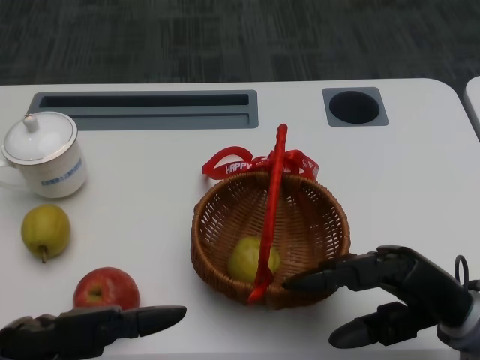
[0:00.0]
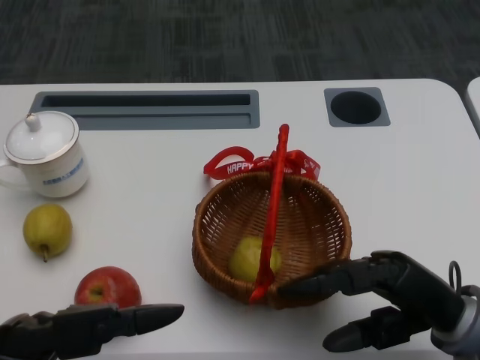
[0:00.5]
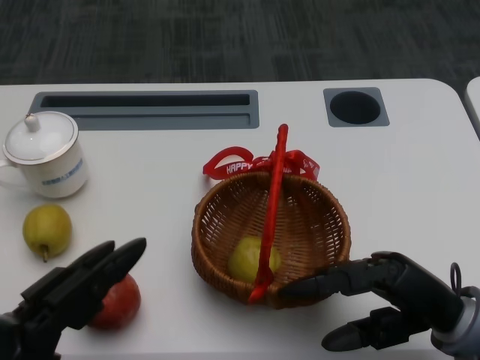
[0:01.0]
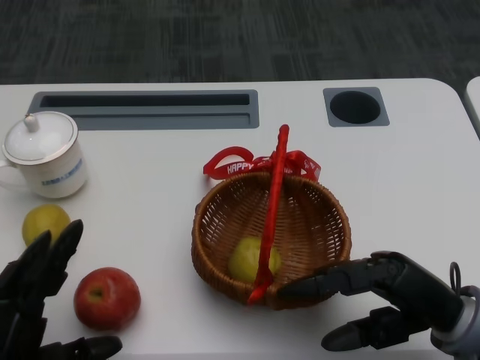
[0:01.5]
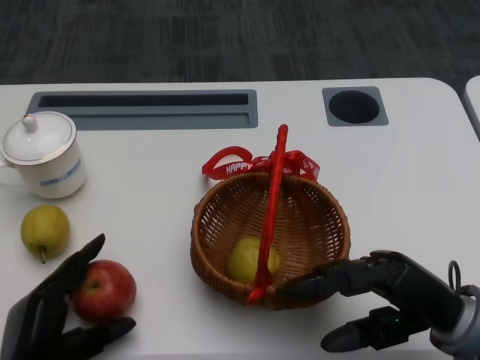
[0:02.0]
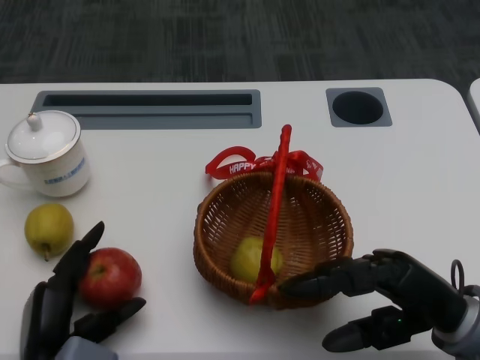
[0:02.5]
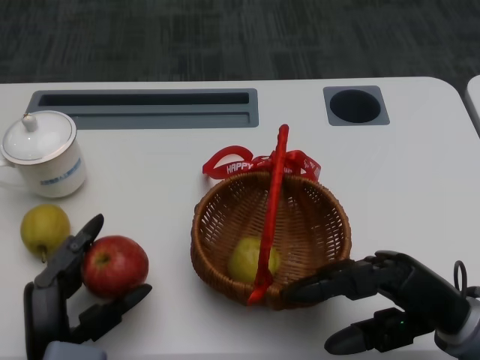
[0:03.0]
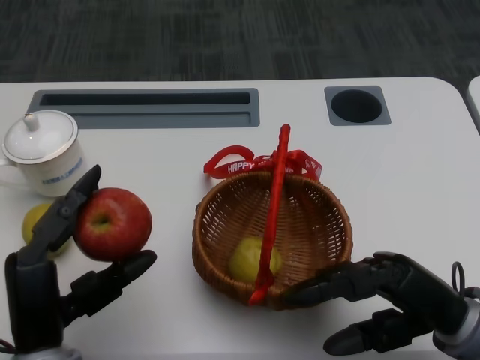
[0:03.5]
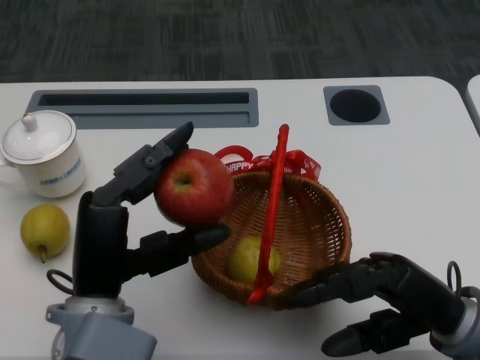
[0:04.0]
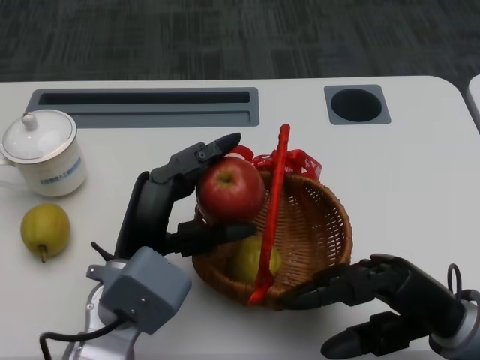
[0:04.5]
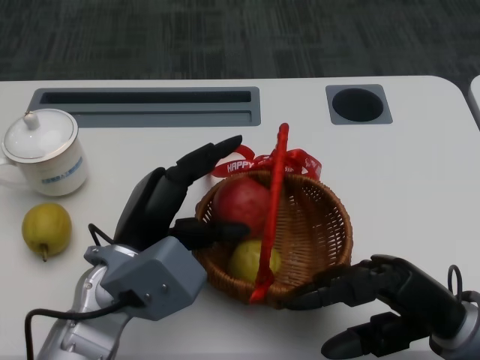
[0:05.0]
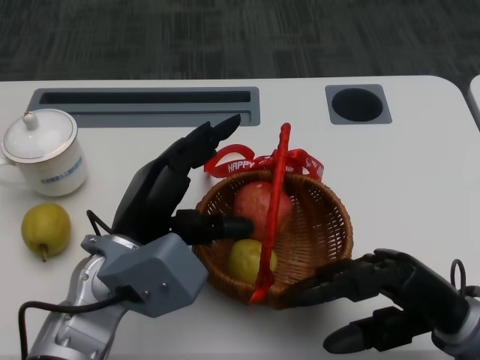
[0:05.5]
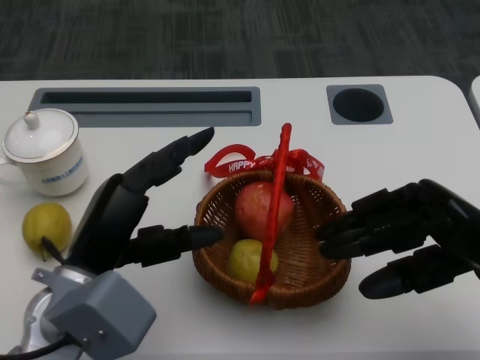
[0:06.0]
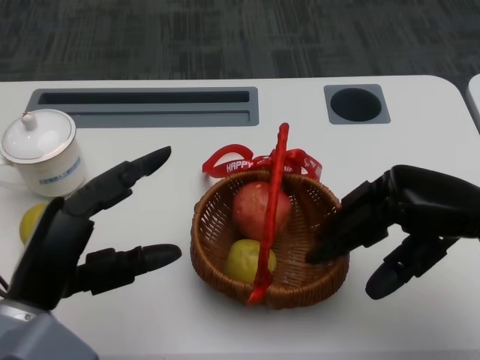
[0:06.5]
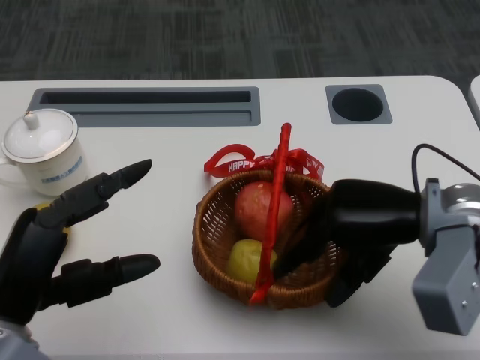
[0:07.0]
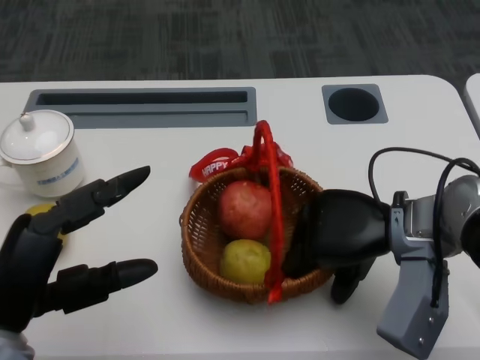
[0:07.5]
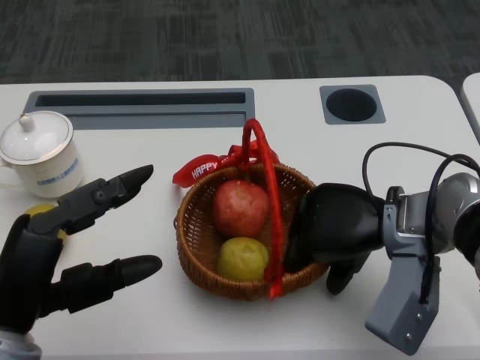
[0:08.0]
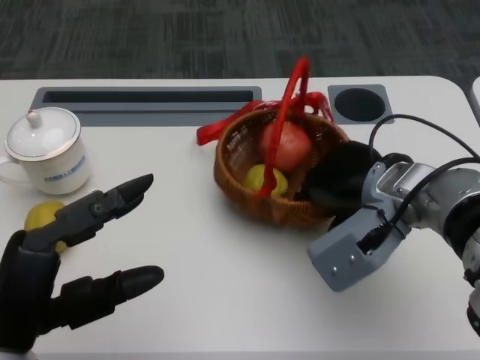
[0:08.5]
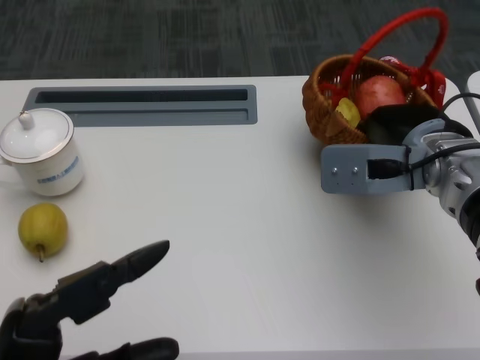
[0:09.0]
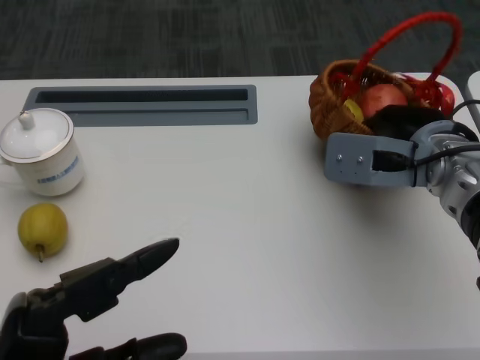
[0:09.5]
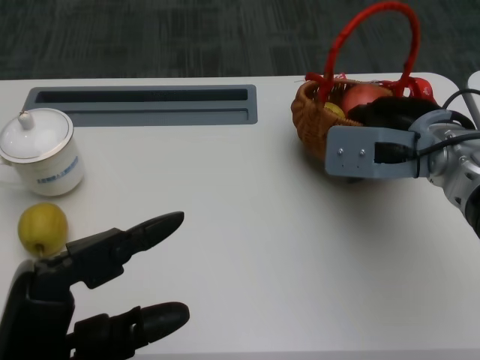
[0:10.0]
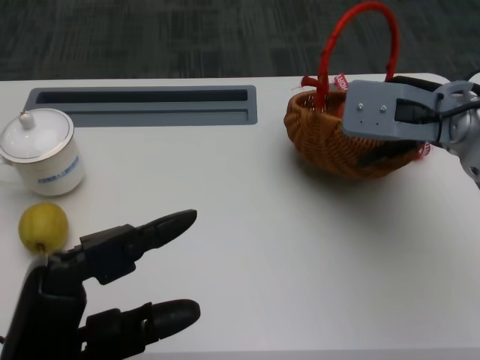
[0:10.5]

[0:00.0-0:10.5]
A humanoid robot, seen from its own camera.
Step, 0:01.0 to 0:02.0: Grasp the apple with the left gripper.
Step, 0:02.5 to 0:04.0: Place the apple into the basket with the left gripper.
Step, 0:04.5 to 0:06.0: Grasp the basket with the right gripper.
Step, 0:06.5 to 0:09.5: Move the basket to the front of the table with the right gripper.
0:02.0 to 0:04.0: The left hand is displaced upward and to the right by about 15 cm.
0:04.0 to 0:06.5: The left hand is displaced to the left by some 5 cm, while the right hand travels upward and forward by approximately 10 cm.
0:06.5 to 0:08.5: The right hand moves to the left, approximately 10 cm.
0:08.5 to 0:10.5: The right hand travels upward by approximately 5 cm.

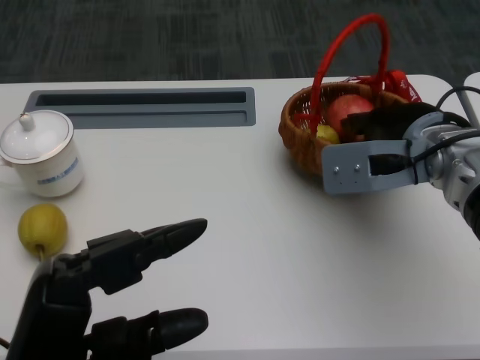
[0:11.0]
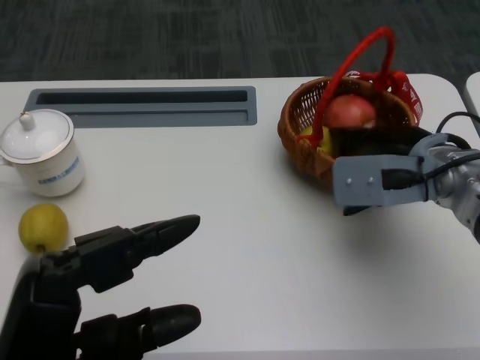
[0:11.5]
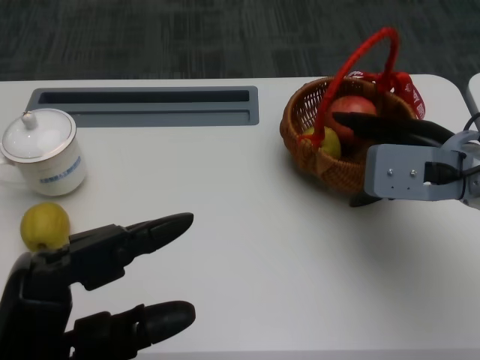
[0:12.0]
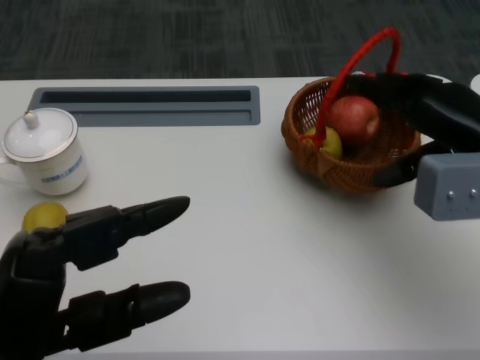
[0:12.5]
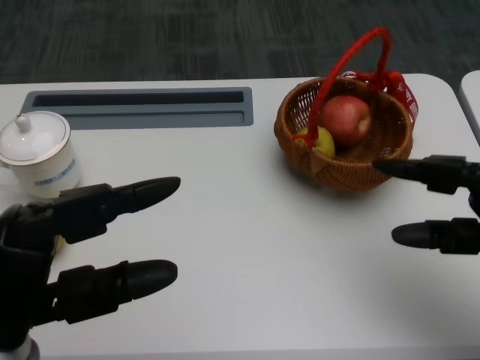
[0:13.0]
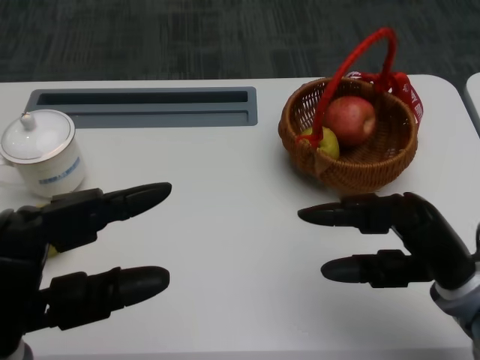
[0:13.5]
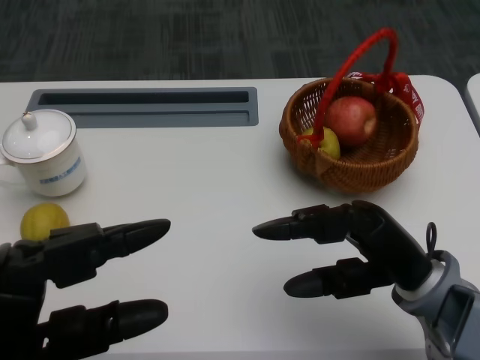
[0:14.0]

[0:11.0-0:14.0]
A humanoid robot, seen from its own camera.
0:11.0 to 0:12.5: The right hand is displaced to the right by roughly 5 cm.
0:12.5 to 0:14.0: The right hand travels backward, downward and to the left by roughly 15 cm.

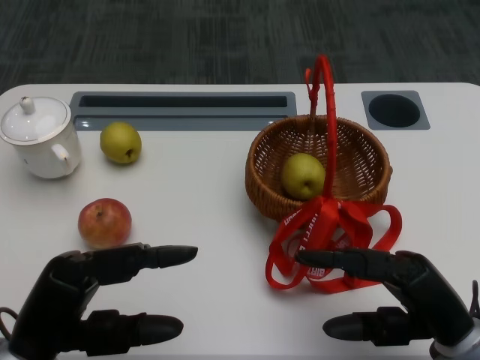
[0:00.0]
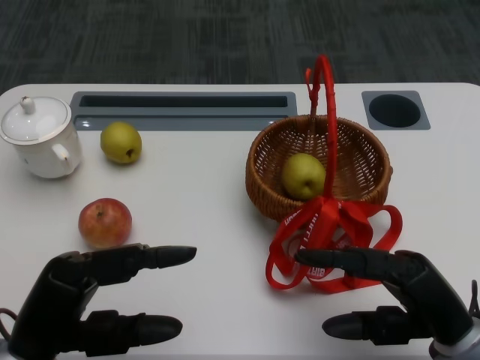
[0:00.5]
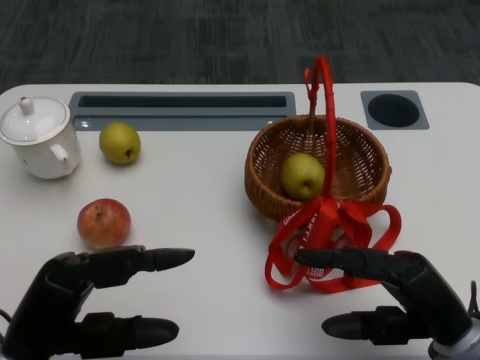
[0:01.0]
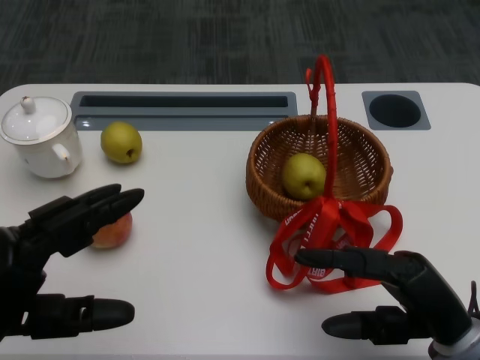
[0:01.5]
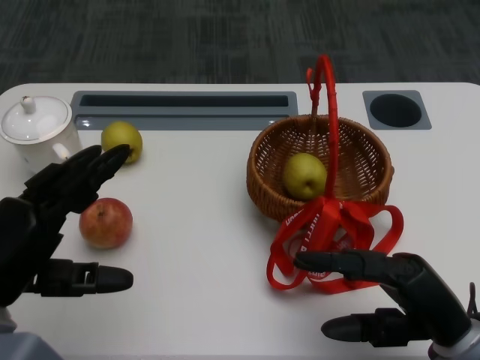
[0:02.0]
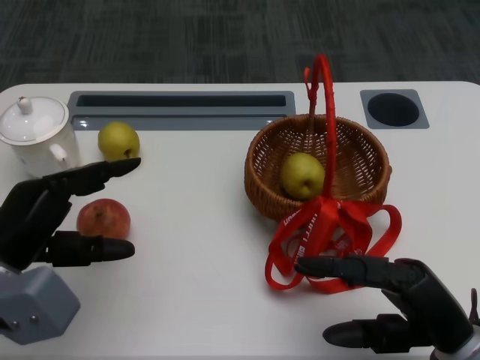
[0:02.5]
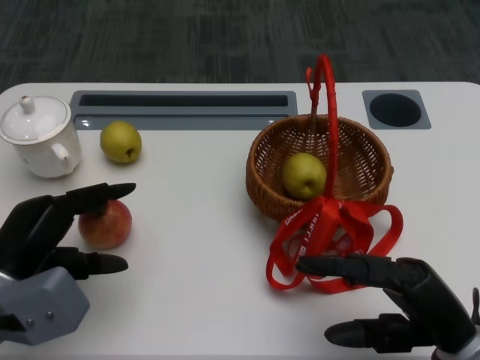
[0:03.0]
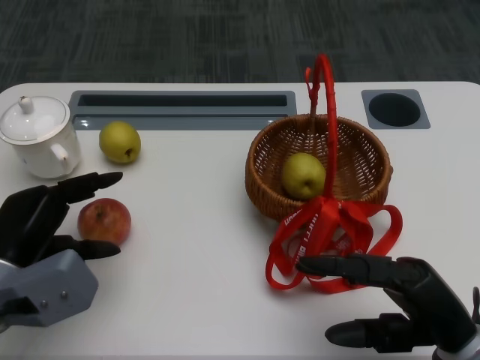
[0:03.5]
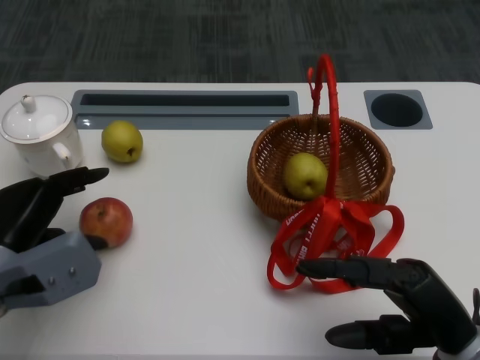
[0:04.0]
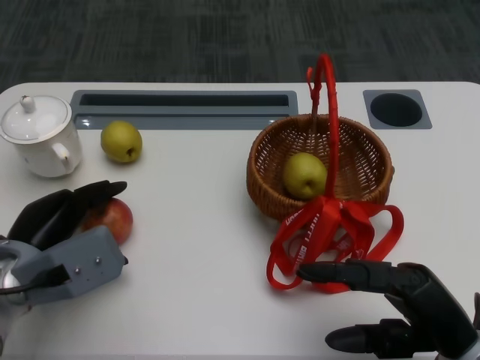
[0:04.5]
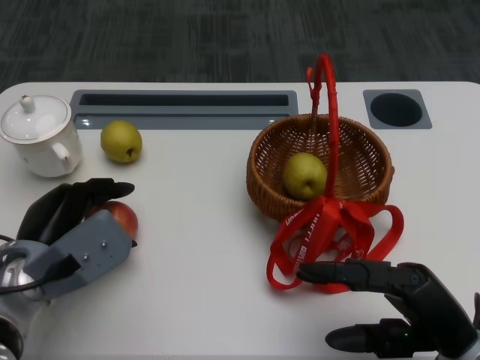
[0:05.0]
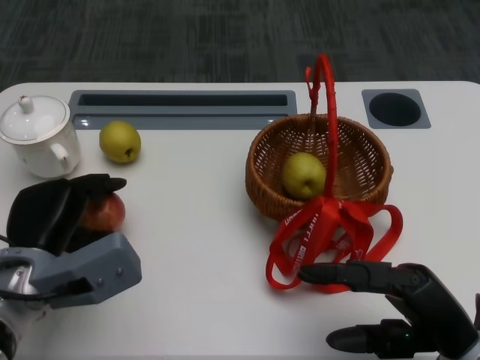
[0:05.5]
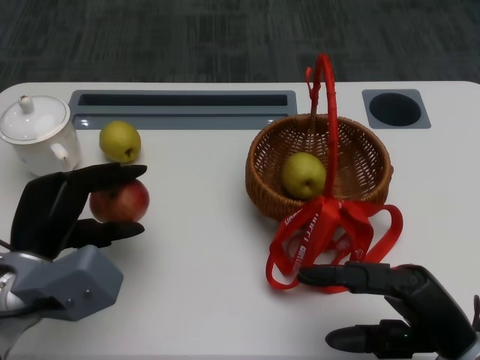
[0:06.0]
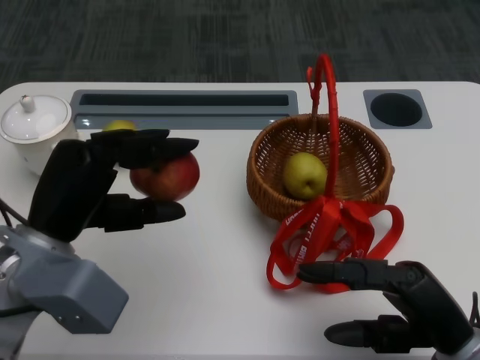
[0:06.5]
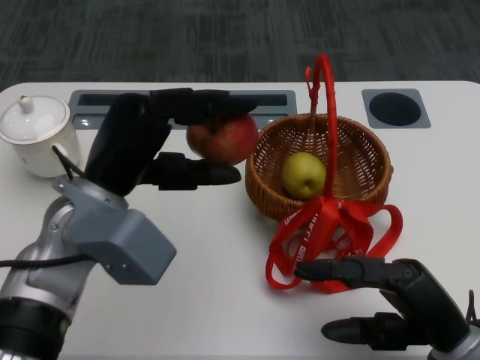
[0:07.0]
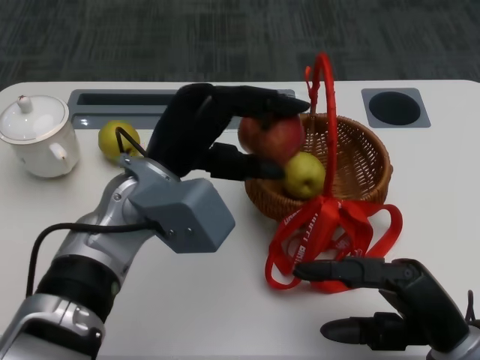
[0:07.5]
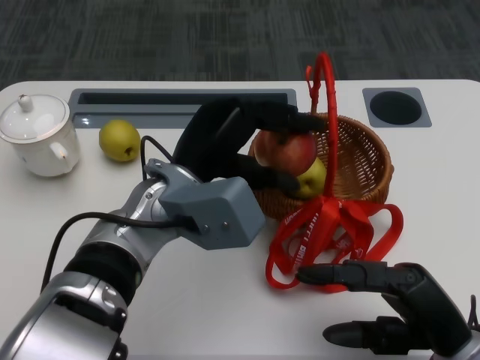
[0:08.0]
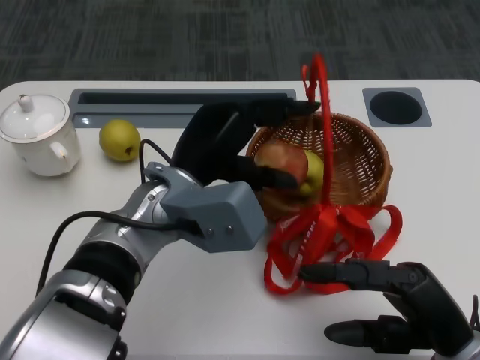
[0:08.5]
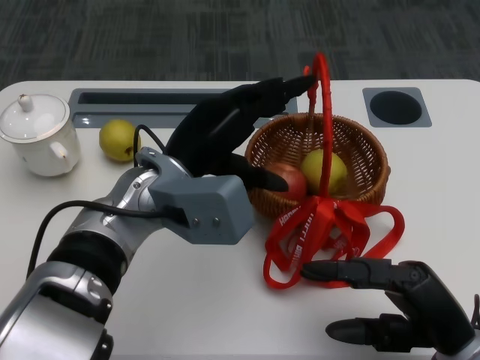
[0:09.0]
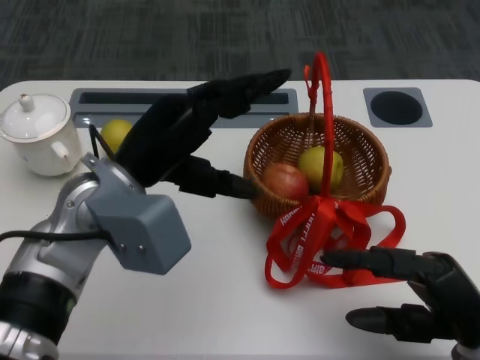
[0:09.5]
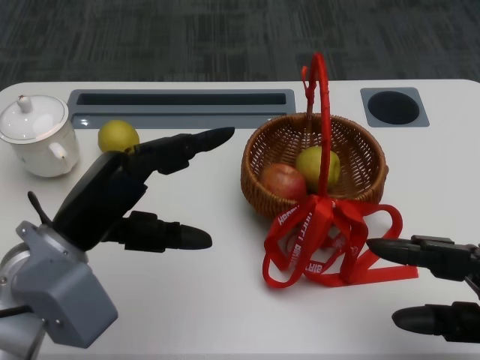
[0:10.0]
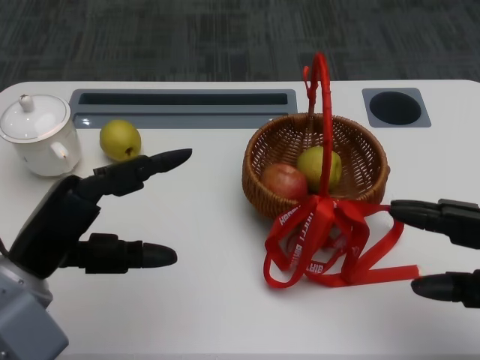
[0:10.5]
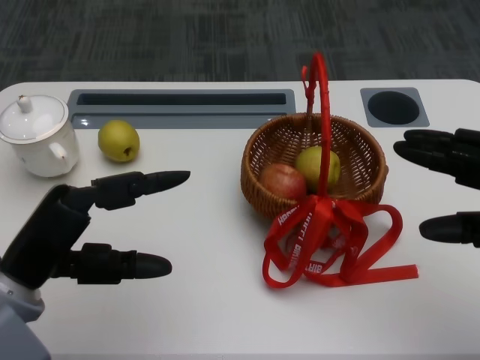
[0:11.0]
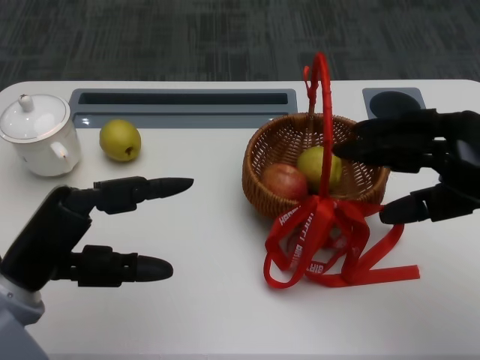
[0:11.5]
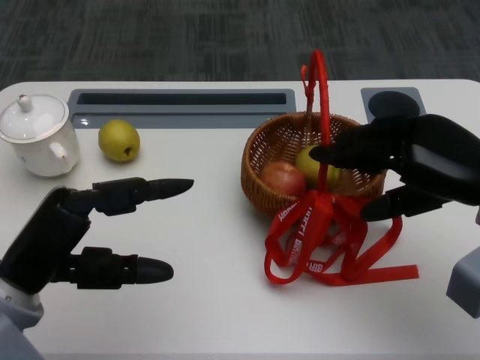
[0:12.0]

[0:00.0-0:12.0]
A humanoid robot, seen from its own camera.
Step, 0:01.0 to 0:04.0: Grasp the apple with the left gripper.
Step, 0:04.5 to 0:07.0: Place the apple into the basket with the left gripper.
0:02.0 to 0:04.0: The left hand travels forward by approximately 5 cm.
0:04.0 to 0:06.0: The hands move only a little.
0:06.0 to 0:08.0: The left hand goes about 15 cm to the right and upward.
0:08.0 to 0:10.0: The right hand heads to the right, covering some 5 cm. Meanwhile the left hand moves to the left and backward, roughly 10 cm.
0:10.0 to 0:12.0: The right hand shifts approximately 15 cm forward and upward; the left hand ends up some 5 cm from where it was.
